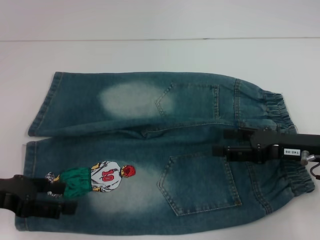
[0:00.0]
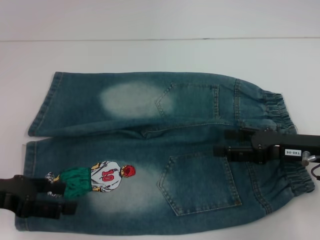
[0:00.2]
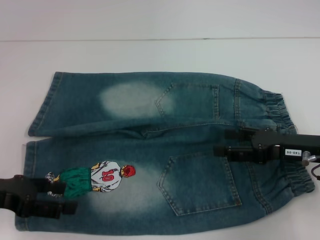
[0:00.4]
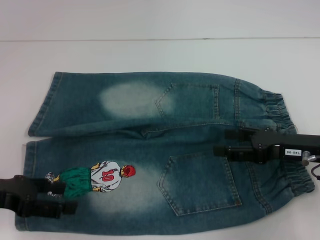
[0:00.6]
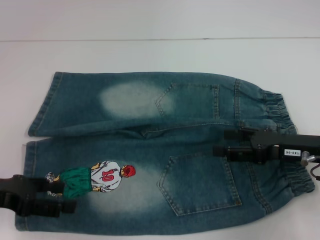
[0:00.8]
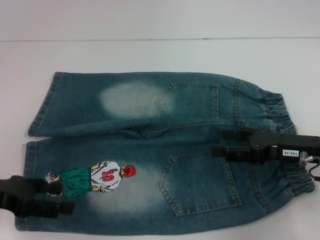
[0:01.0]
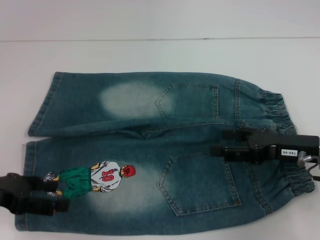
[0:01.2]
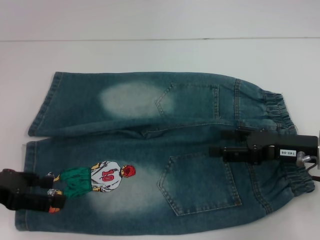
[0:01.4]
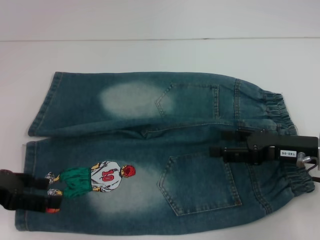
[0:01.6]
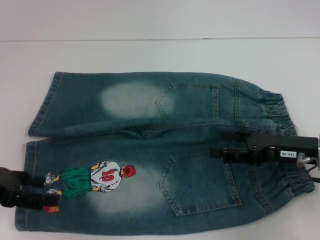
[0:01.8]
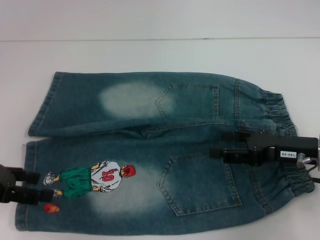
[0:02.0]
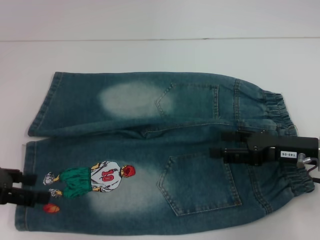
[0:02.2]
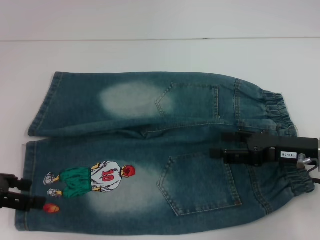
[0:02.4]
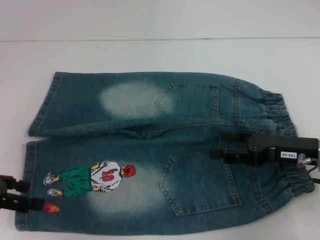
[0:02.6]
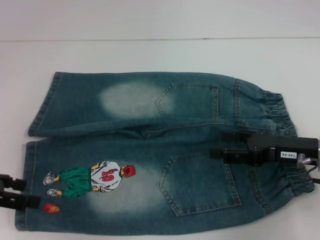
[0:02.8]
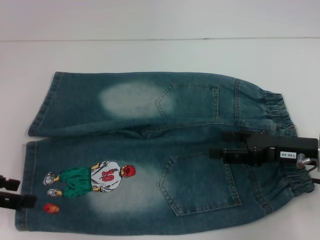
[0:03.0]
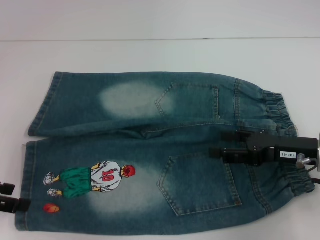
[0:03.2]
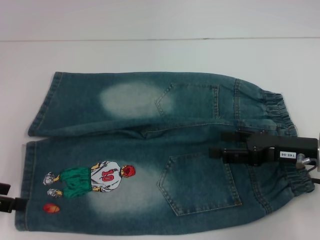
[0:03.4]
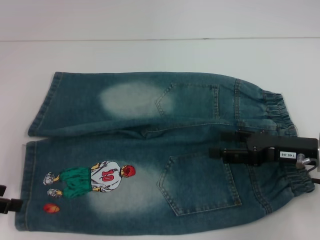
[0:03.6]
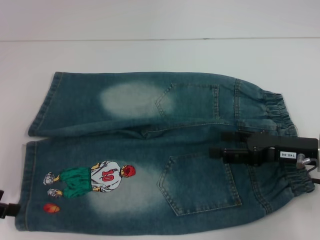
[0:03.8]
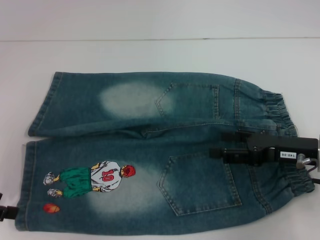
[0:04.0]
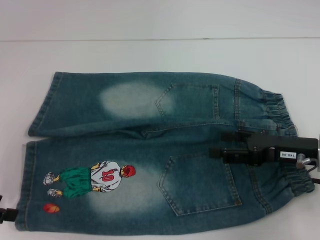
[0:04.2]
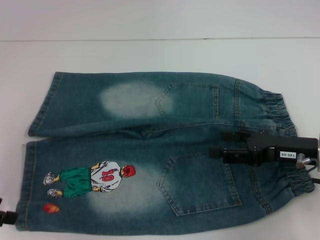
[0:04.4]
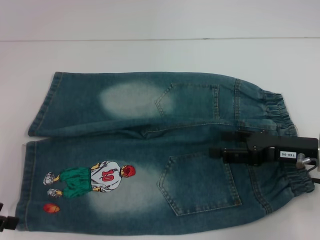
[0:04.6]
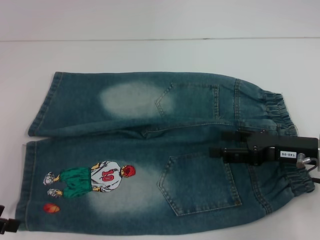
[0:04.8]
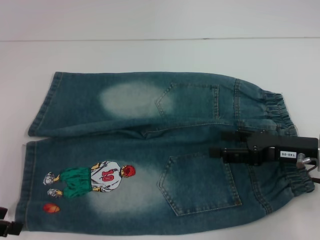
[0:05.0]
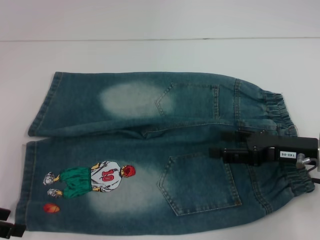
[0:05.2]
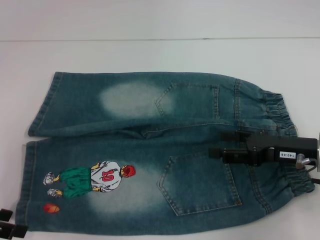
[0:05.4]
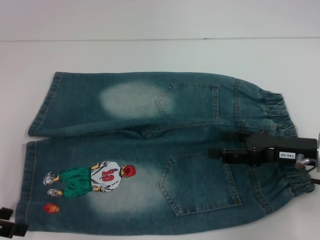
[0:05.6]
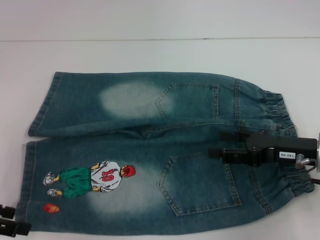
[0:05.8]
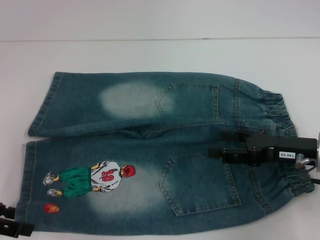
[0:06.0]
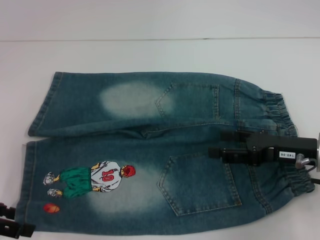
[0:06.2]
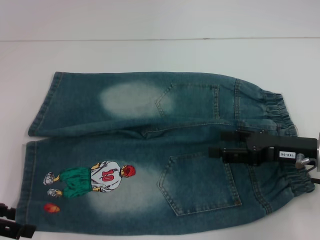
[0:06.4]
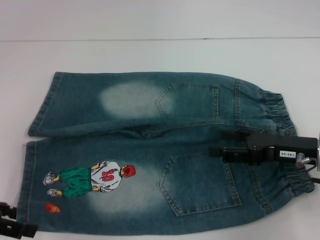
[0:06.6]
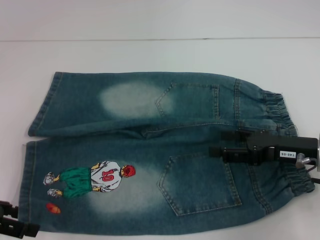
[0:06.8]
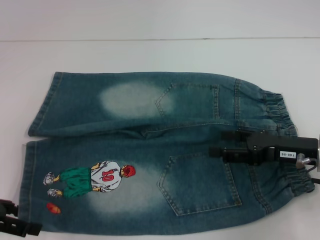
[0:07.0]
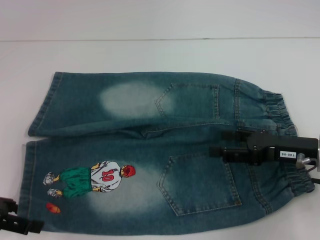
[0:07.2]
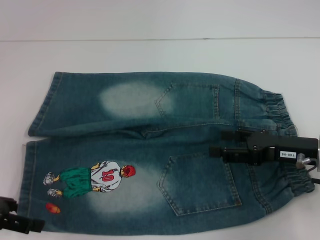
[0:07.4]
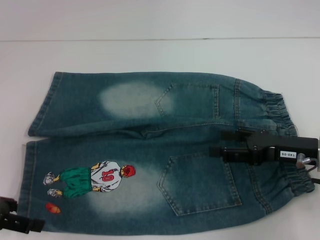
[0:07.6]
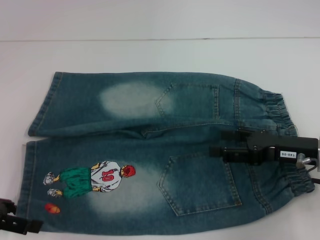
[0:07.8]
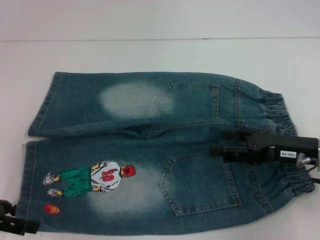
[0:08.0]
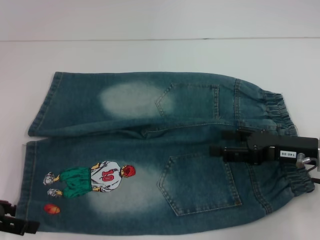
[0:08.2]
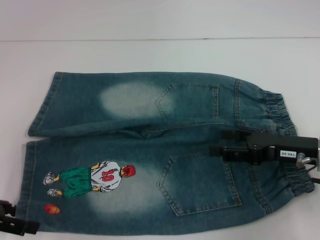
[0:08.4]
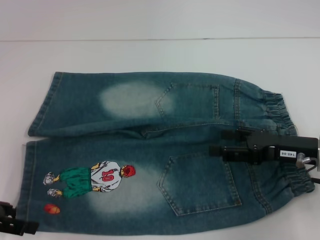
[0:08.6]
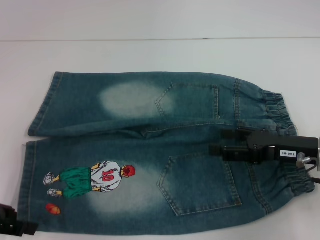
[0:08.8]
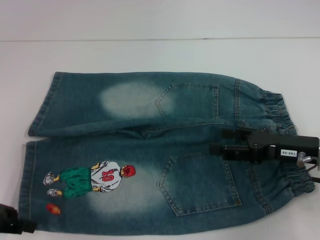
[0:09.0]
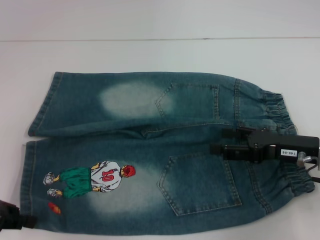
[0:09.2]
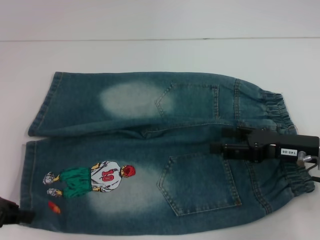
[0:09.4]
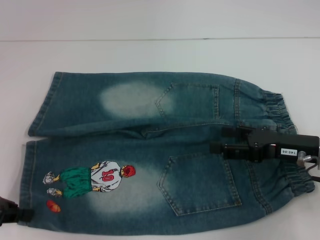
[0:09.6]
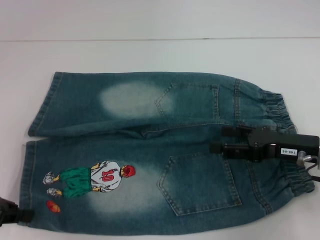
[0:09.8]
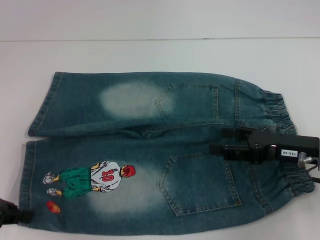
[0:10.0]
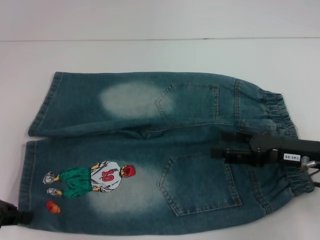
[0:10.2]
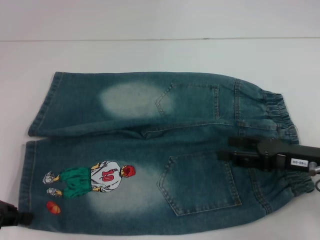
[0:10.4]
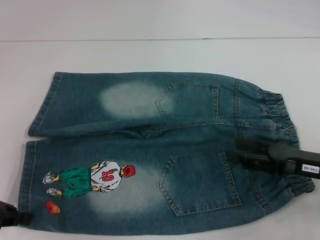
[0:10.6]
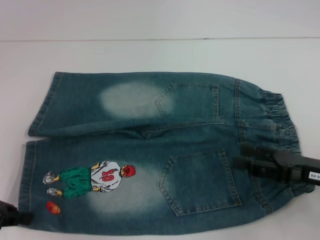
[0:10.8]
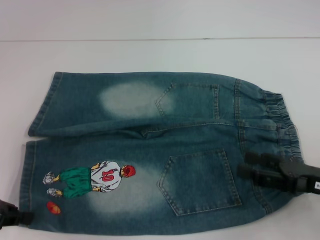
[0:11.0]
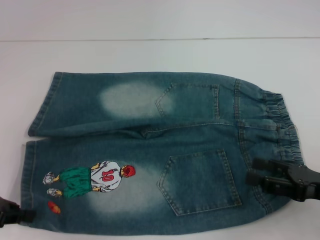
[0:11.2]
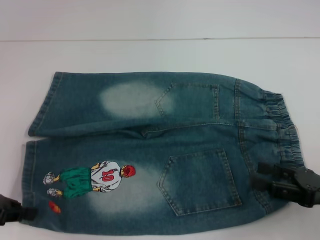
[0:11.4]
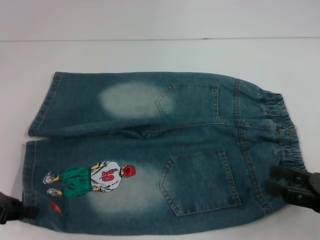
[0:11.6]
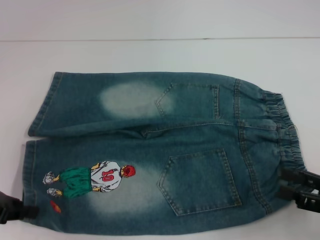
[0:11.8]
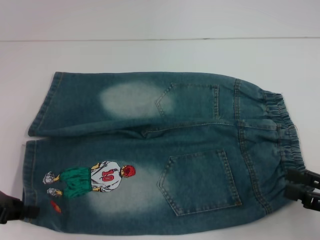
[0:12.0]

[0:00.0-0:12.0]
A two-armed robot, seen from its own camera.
Step, 0:00.0 to 0:09.4: Grab the lower left pant leg with your left hand.
0:00.0 to 0:03.0: The grippers move only a little.
0:03.0 to 0:06.0: There are only small adjustments of the grippers.
0:06.0 to 0:09.0: Both grippers stay about where they are.
0:09.0 to 0:10.4: The left gripper closes its fingers.
0:10.4 to 0:12.0: The right gripper moves backward and to the right, some 10 cm.

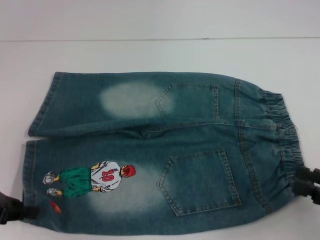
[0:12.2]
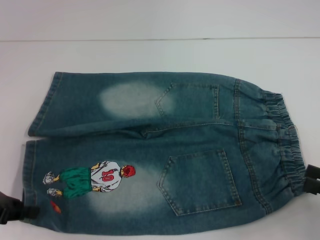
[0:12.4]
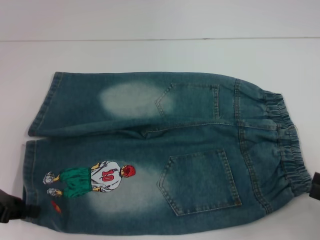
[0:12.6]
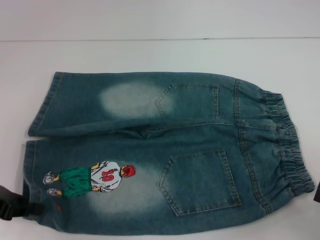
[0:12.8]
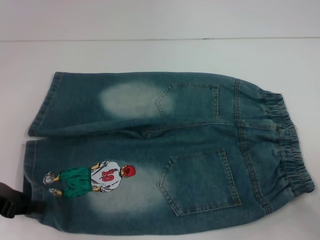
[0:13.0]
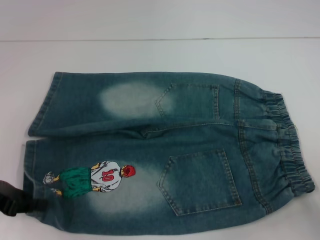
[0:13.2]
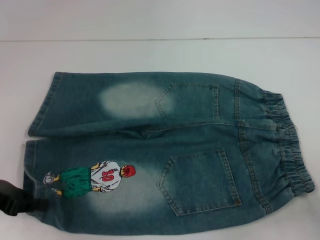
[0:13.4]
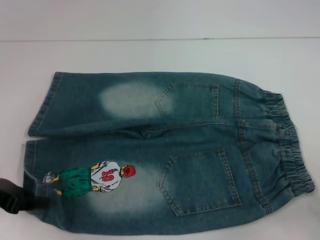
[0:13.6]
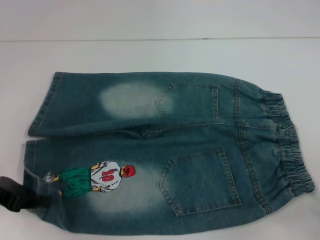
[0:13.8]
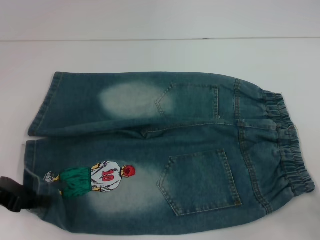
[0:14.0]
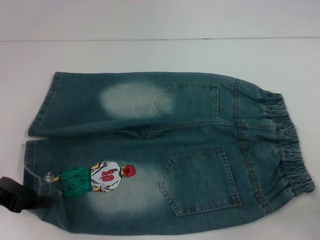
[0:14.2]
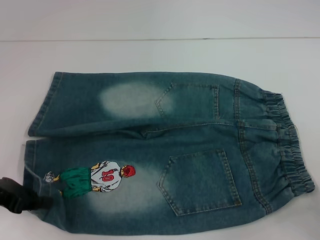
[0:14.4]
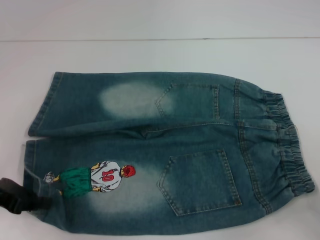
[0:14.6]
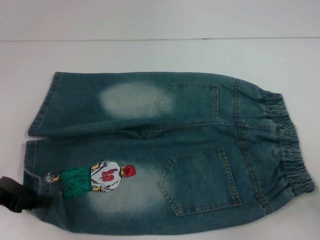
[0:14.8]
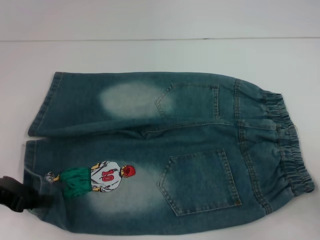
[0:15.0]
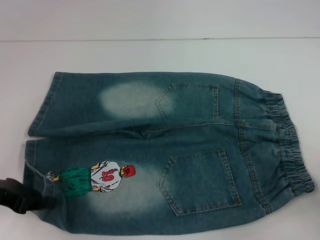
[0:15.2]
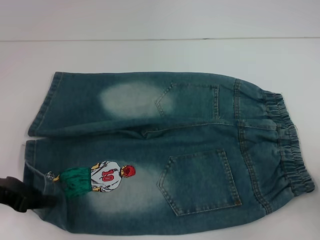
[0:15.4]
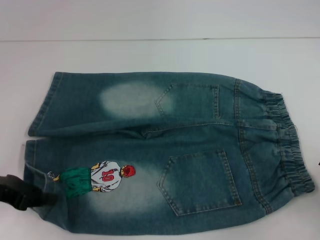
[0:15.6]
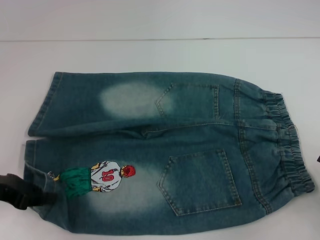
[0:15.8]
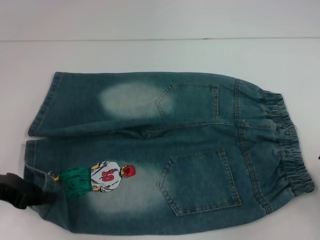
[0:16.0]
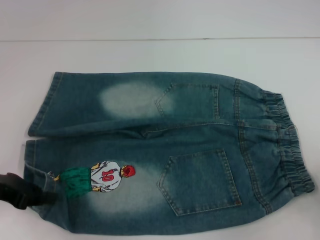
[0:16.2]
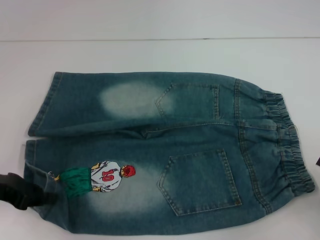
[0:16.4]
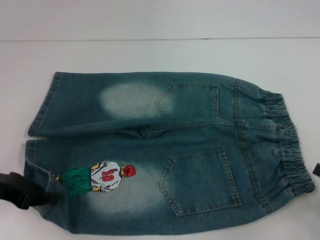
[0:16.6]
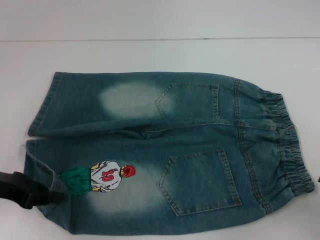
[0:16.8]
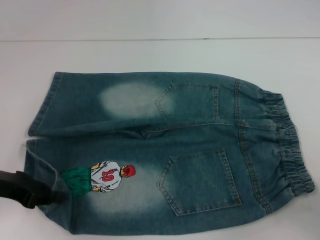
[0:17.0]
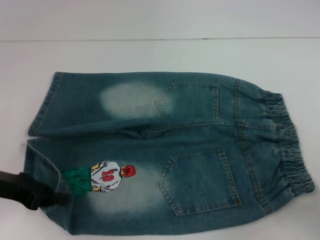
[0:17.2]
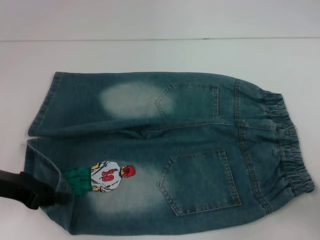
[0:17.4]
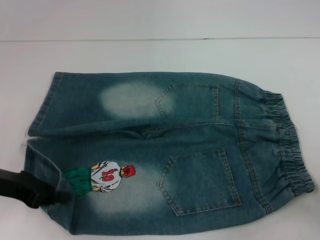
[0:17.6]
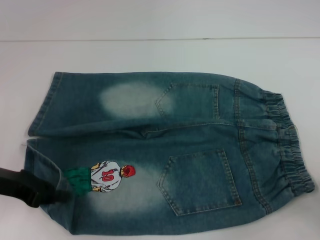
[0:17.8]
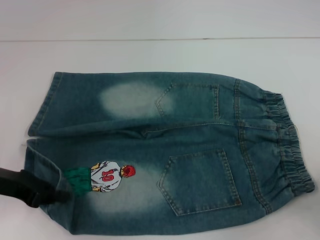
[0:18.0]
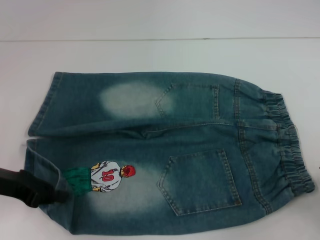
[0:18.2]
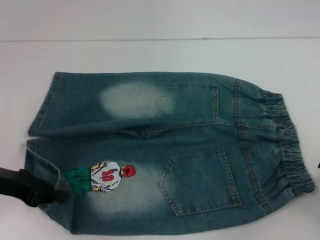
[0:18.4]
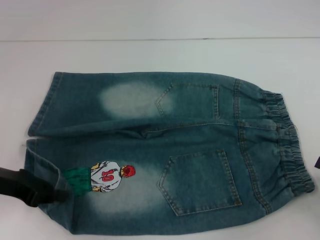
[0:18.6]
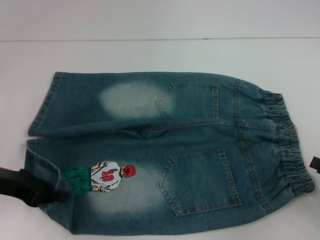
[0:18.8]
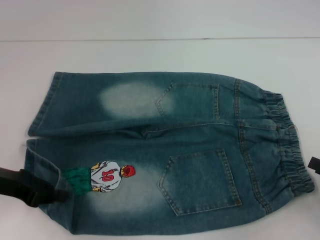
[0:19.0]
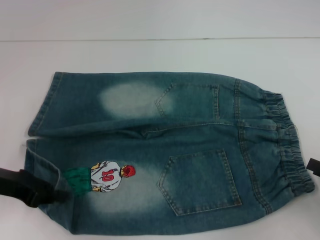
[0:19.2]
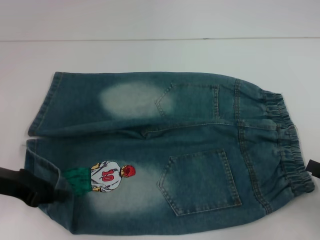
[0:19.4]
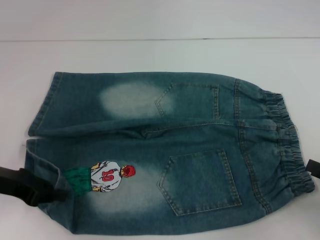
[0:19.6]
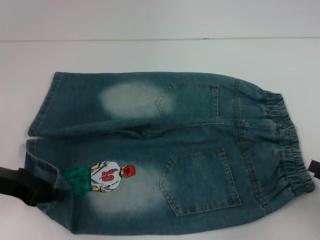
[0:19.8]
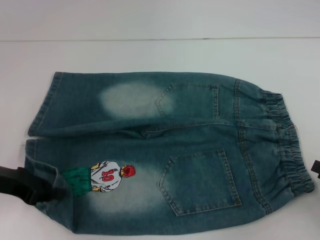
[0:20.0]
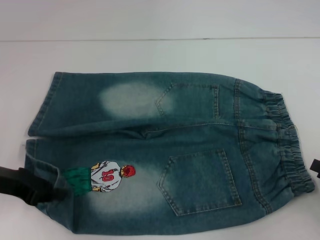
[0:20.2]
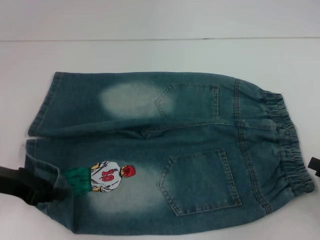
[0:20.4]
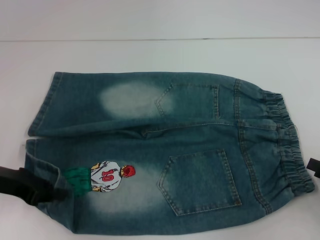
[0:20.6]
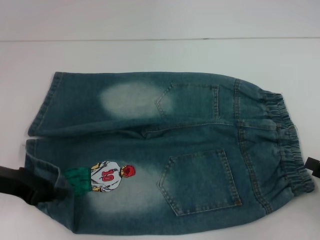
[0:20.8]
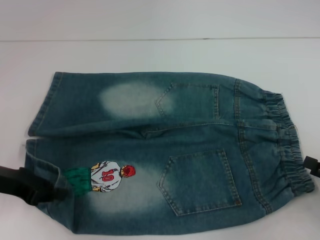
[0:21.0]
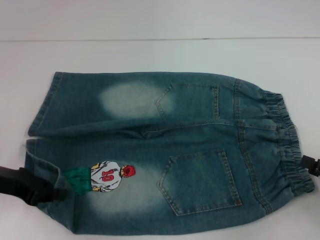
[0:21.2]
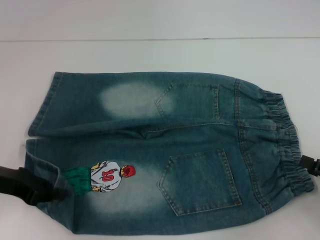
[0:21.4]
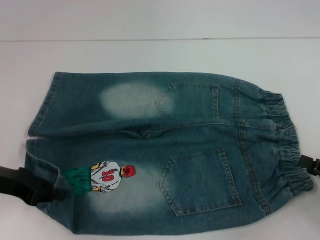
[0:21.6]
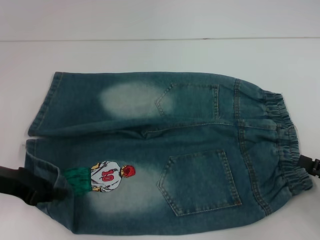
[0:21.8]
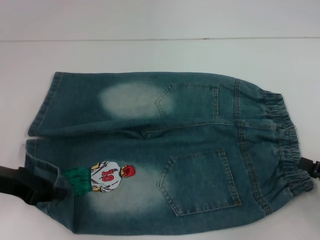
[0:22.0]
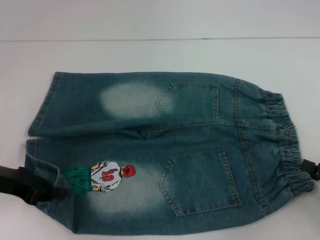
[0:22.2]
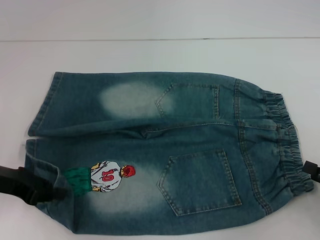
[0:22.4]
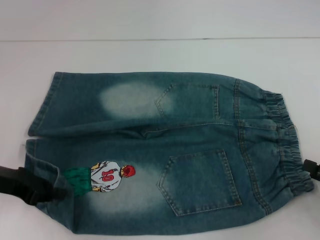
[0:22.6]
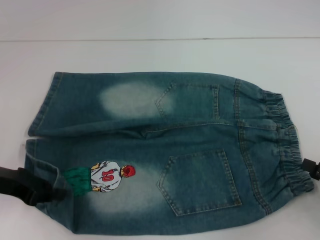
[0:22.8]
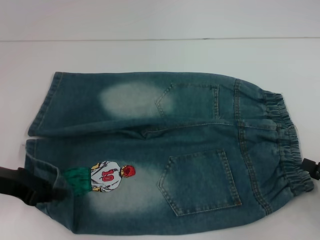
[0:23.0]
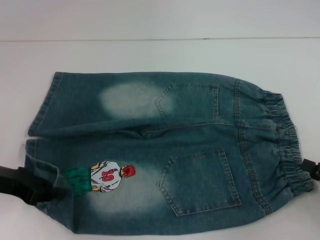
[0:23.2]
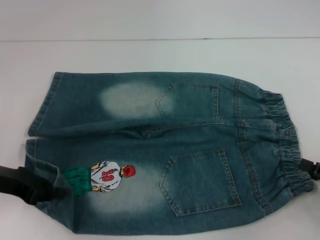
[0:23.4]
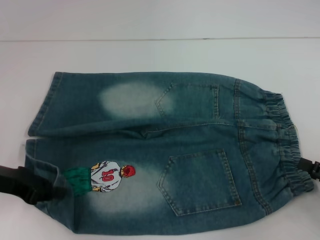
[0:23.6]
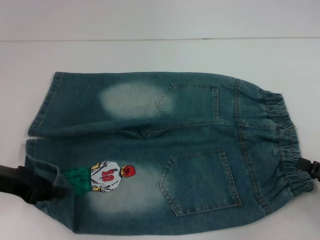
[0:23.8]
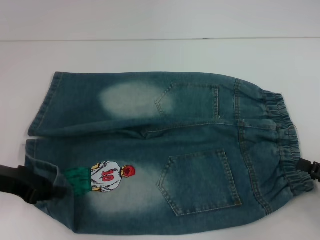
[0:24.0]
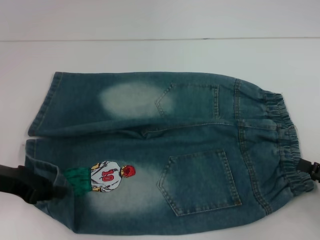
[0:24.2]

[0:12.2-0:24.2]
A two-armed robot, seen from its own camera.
0:12.2 to 0:13.8: The right gripper changes place by approximately 5 cm.
0:15.2 to 0:18.2: The grippers stay close to where they were, moving slightly.
0:21.2 to 0:24.2: Neither gripper changes place.
